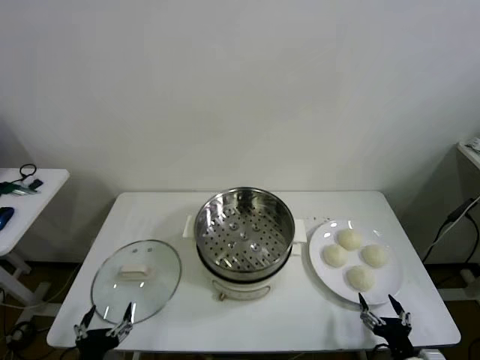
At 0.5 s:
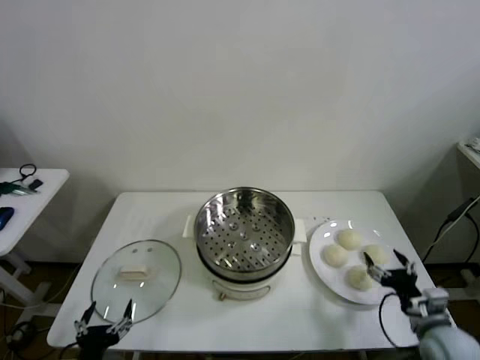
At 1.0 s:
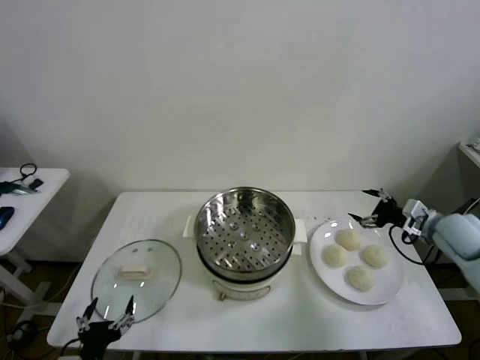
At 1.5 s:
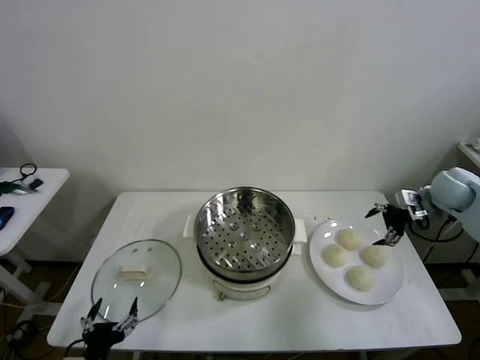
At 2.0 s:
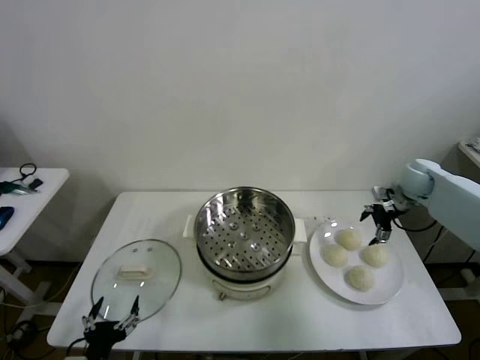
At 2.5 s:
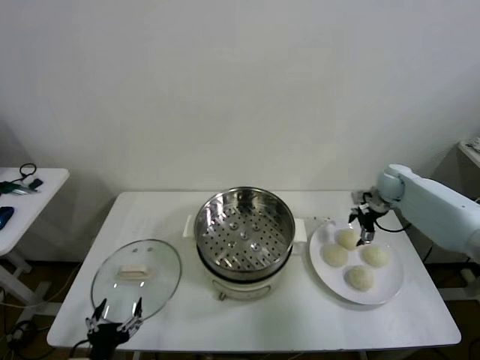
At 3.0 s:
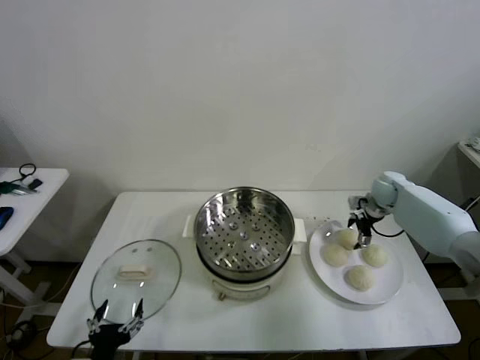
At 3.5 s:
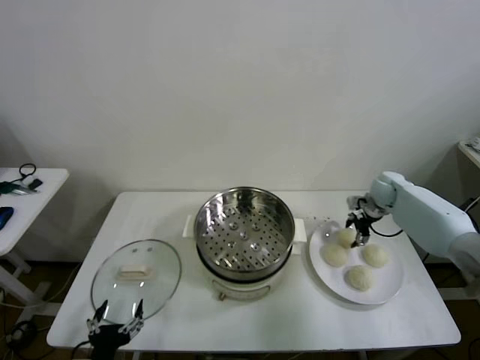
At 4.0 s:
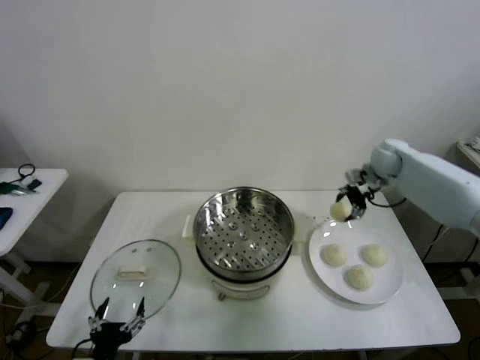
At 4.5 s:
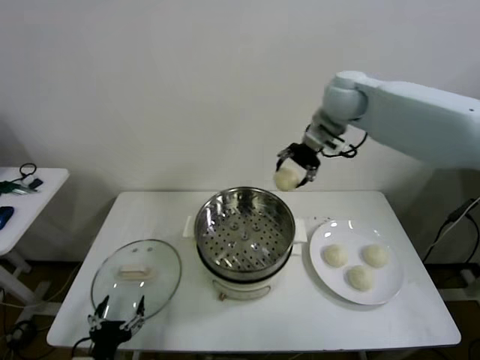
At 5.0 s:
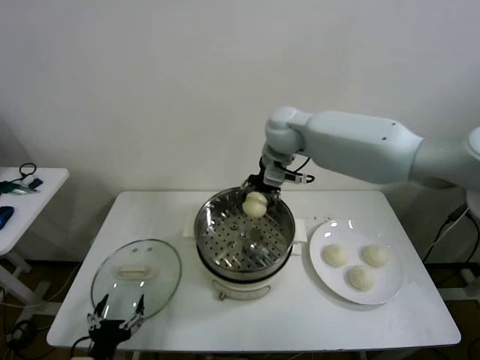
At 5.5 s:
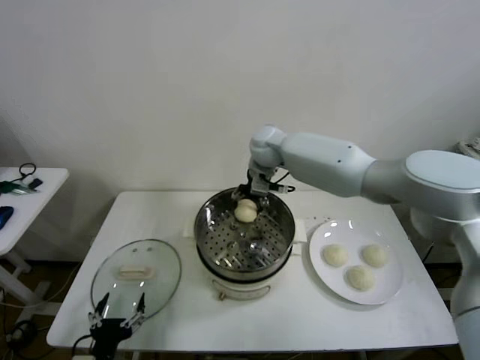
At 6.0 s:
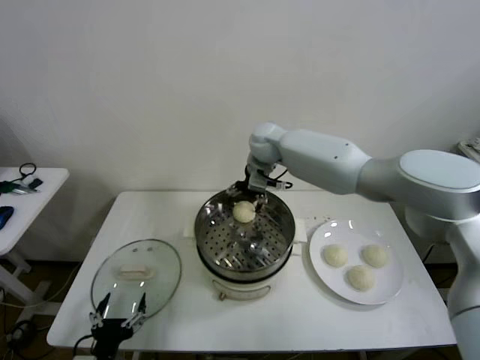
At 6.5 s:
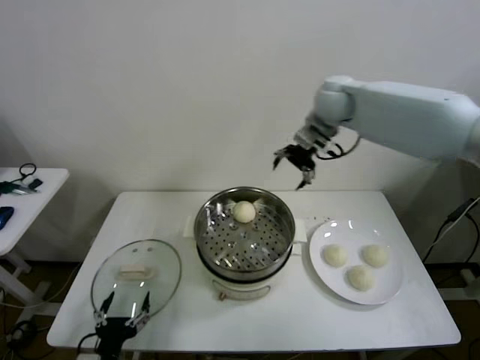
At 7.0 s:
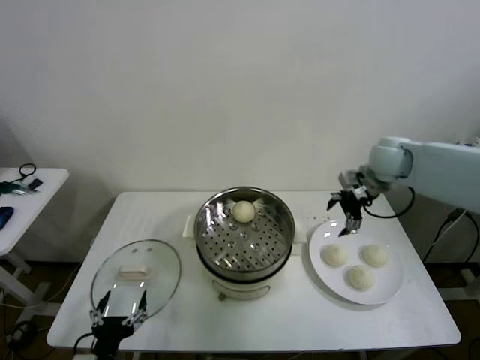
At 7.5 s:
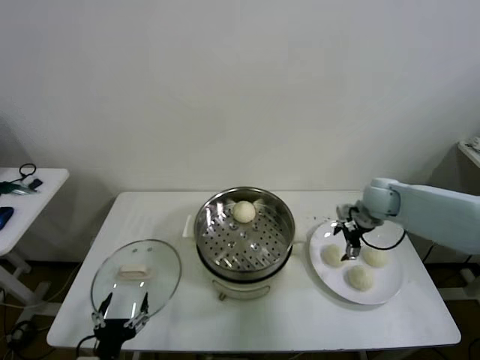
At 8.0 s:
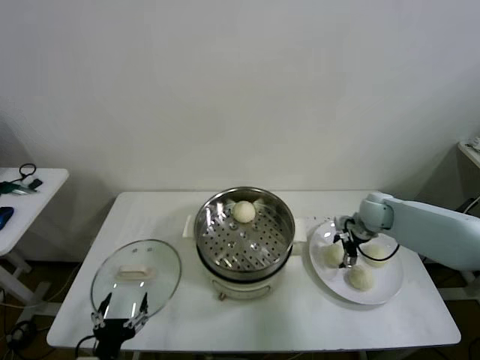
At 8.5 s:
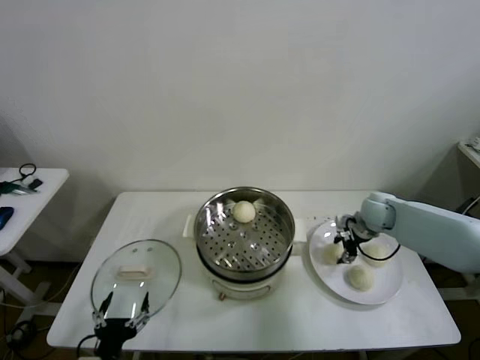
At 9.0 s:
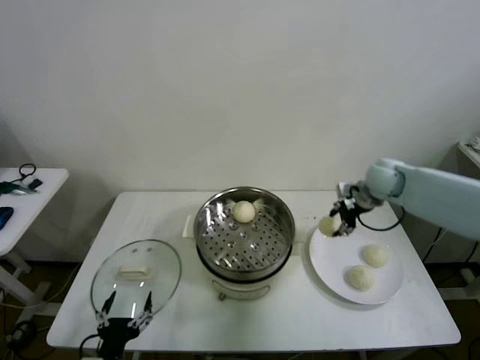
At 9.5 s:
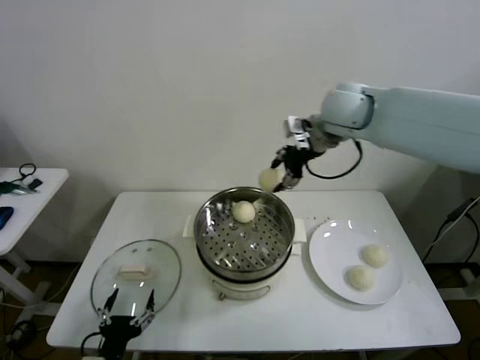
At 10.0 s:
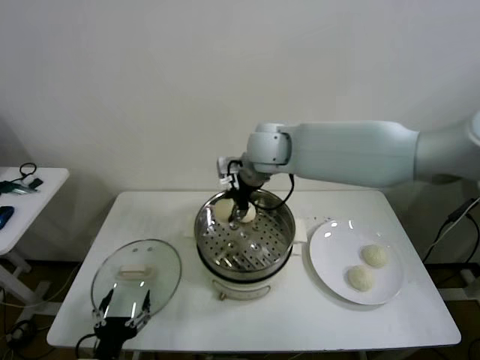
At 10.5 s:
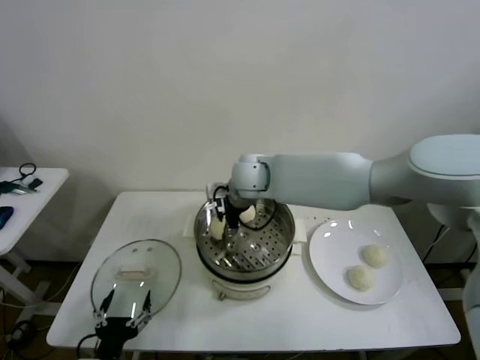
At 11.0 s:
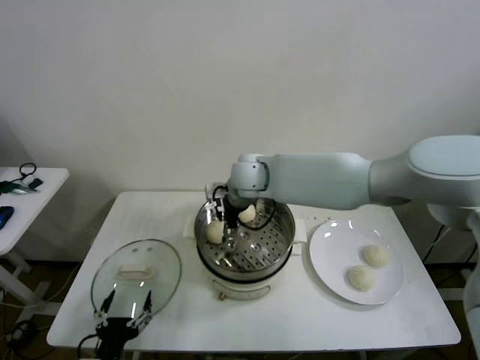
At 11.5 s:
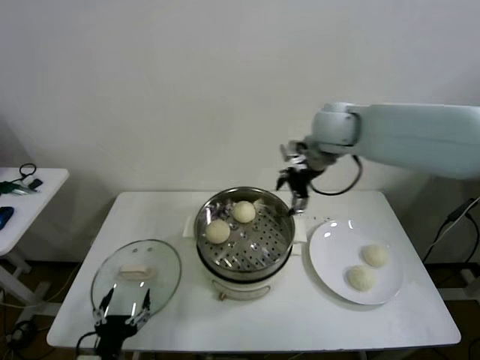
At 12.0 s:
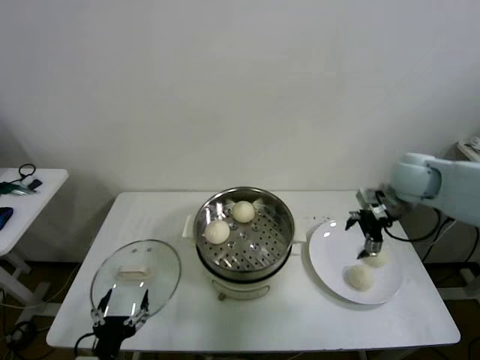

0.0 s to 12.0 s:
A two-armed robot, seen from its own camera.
Task of the whole recording: take steamed baozi put them in steamer then cover it.
Step, 0.0 to 3.5 s: Grasp the baozi in the plate with right gripper.
Step, 4.0 to 6.0 s: Place the baozi on the steamer with right gripper.
Step, 6.5 to 8.5 s: Grasp the baozi in the plate with right gripper.
Step, 9.0 to 11.0 s: Place the baozi on the steamer with right gripper.
2.0 to 4.0 s: The right gripper shifts about 10 cm upward and to the left, and closes.
4.0 to 6.0 s: The right gripper heads to the left, covering roughly 30 cm, and opens up.
6.0 to 8.0 s: The right gripper moves to the right and downward, about 35 cm.
8.0 to 10.0 s: The right gripper shifts some 35 cm to the left and upward, and closes.
10.0 to 12.0 s: The right gripper moves to the right, approximately 30 cm, and opens.

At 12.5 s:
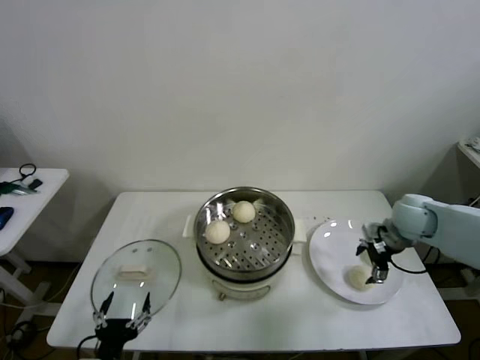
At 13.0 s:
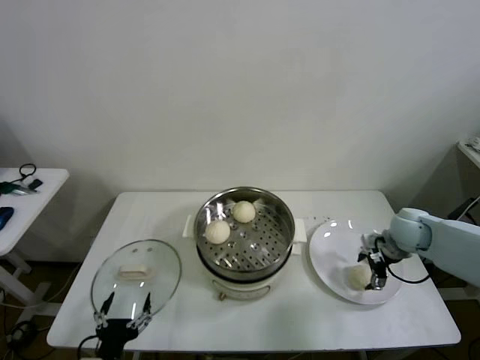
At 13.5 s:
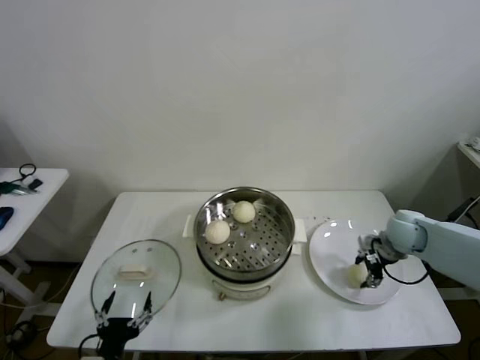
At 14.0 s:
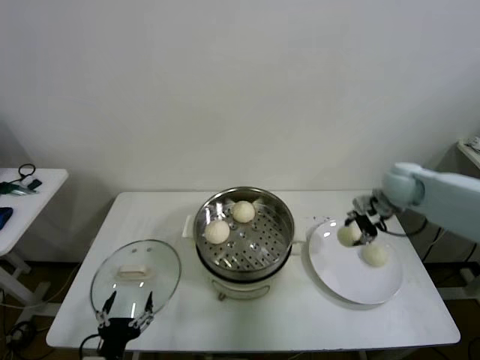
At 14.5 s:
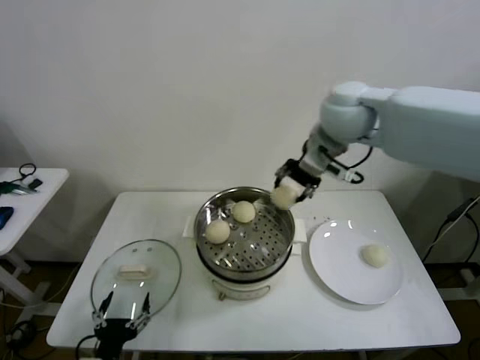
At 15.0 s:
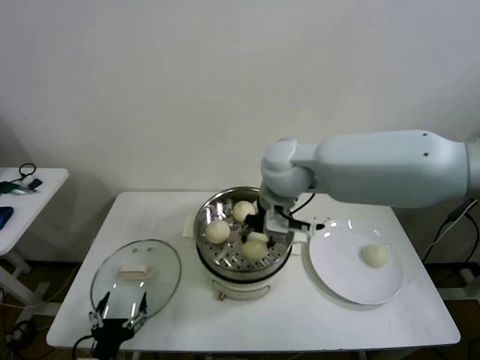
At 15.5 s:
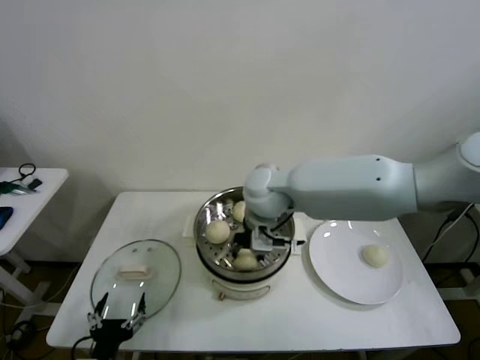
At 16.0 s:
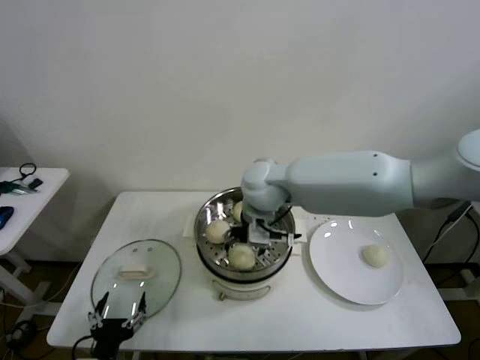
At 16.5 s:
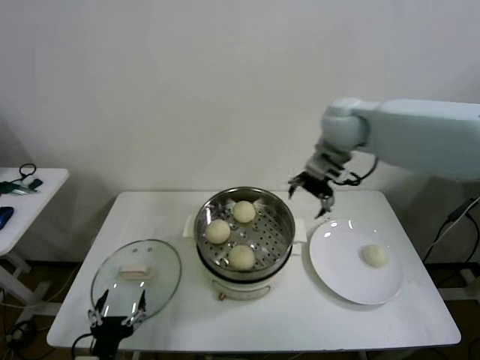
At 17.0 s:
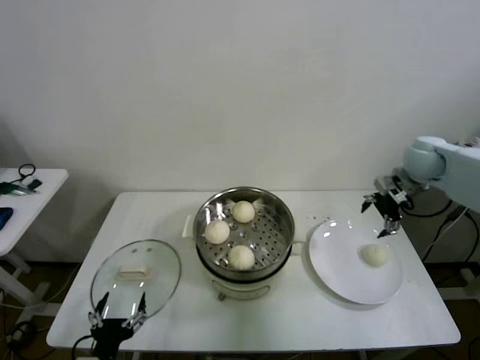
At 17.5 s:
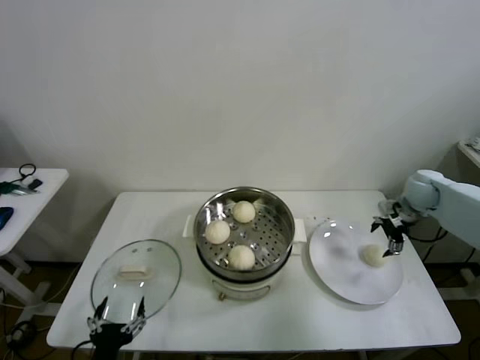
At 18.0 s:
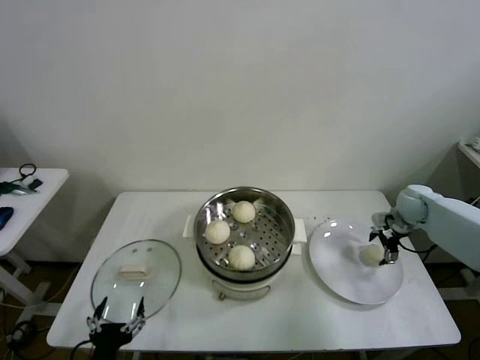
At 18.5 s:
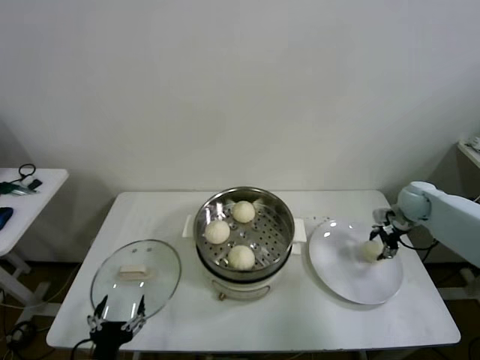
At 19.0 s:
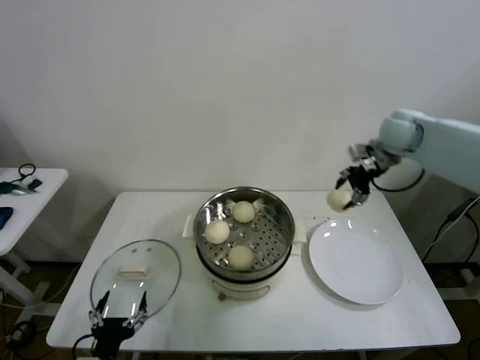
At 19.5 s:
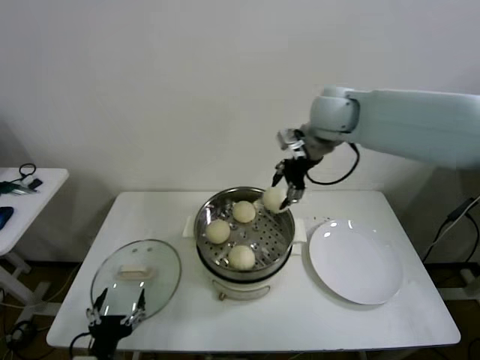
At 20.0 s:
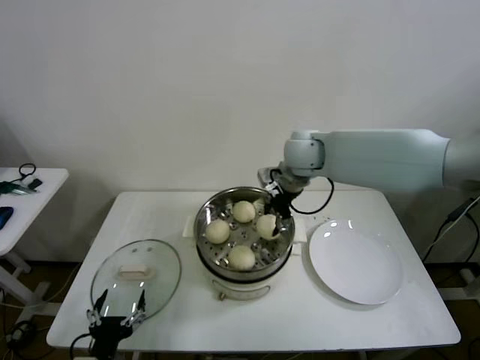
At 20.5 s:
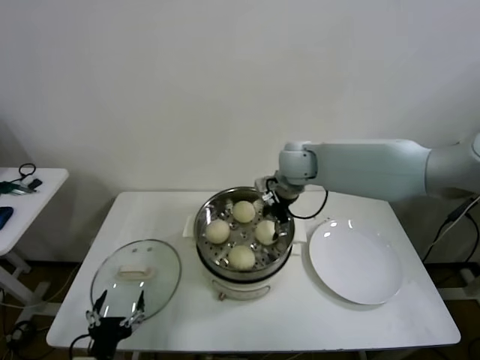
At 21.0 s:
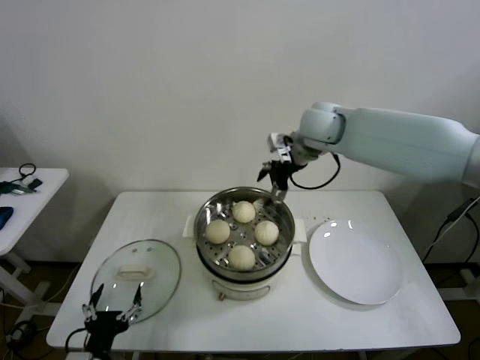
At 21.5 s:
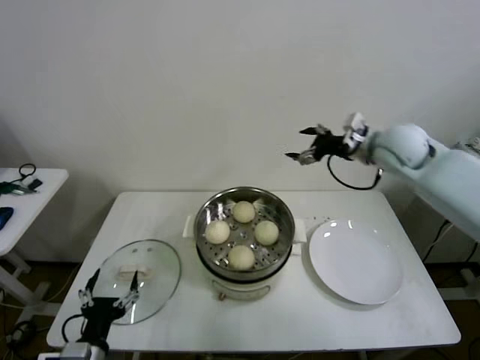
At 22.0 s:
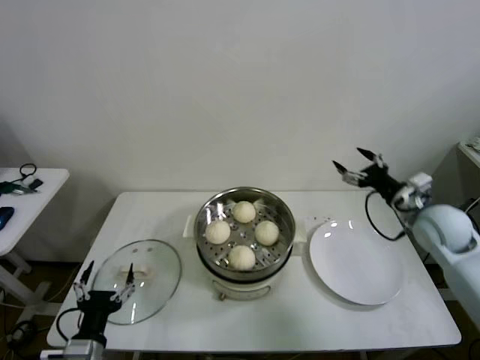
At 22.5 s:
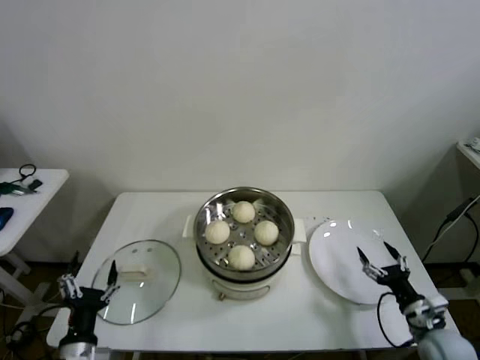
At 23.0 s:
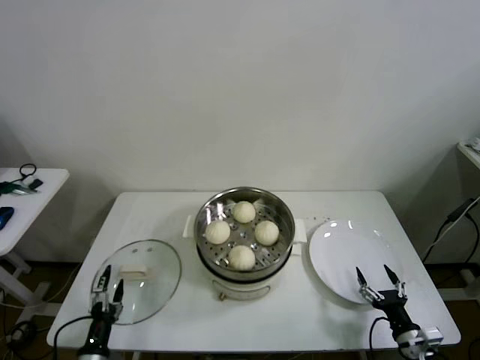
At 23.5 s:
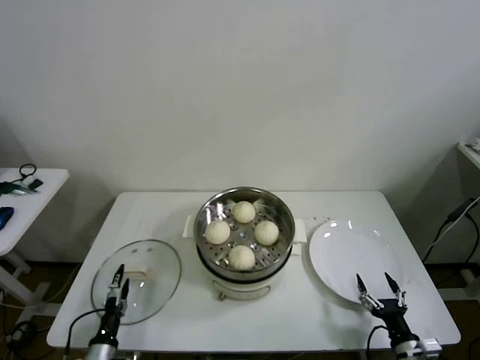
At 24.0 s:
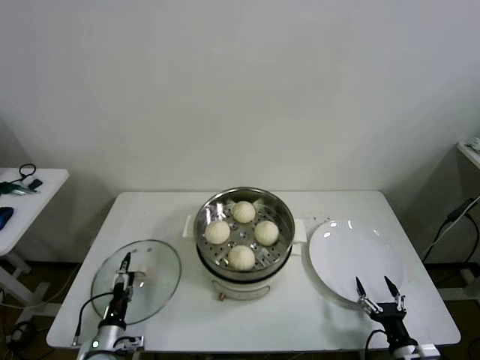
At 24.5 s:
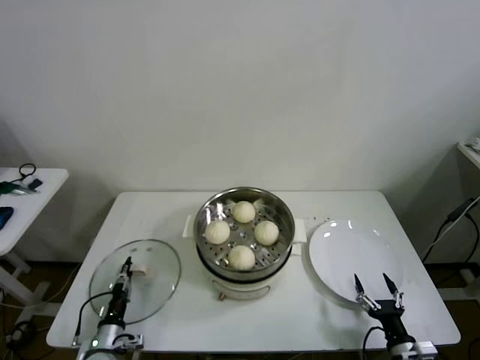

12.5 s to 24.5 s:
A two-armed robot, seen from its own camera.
Task of the whole recording: take steamed baozi put them in steamer then cover it.
Step, 14.0 to 15.5 s: Place the baozi on the steamer with right gripper.
Step, 16.5 to 18.5 s: Grasp the baozi in the plate with right gripper.
Step, 19.0 to 20.5 s: Place the baozi on the steamer with right gripper.
12.5 to 14.5 s: The right gripper goes roughly 35 cm upward and to the left, and closes its fingers.
14.5 to 16.5 s: The right gripper moves approximately 10 cm to the left and comes back, and opens its fingers.
16.5 to 18.5 s: The right gripper heads to the right and downward, covering about 35 cm, and closes up.
18.5 to 20.5 s: The right gripper goes approximately 35 cm to the left.
20.5 to 22.5 s: The right gripper shifts approximately 50 cm to the right, backward and downward, and opens its fingers.
22.5 to 24.5 s: The left gripper shifts about 15 cm downward and forward, and closes. The right gripper heads backward, downward and to the left, covering some 10 cm.

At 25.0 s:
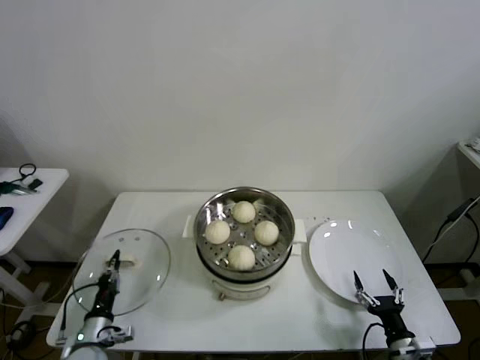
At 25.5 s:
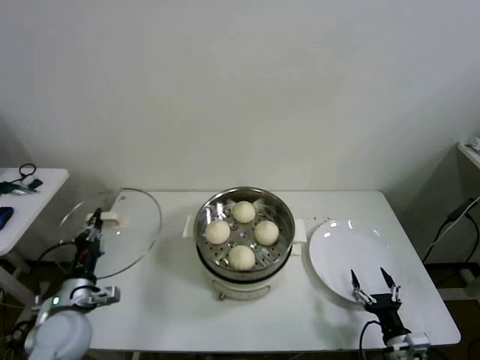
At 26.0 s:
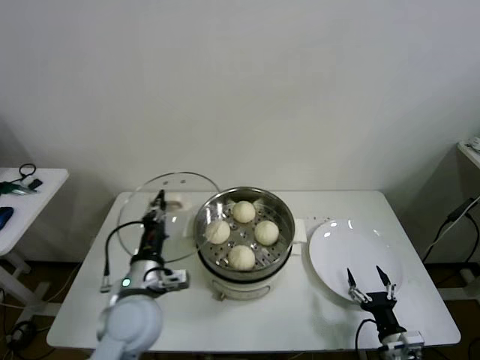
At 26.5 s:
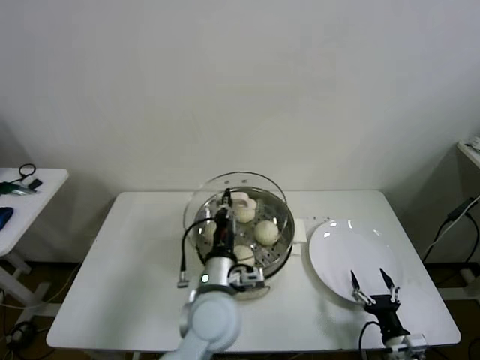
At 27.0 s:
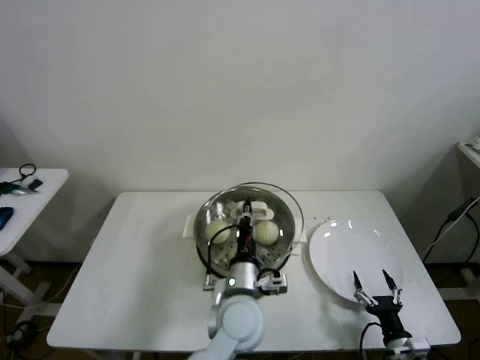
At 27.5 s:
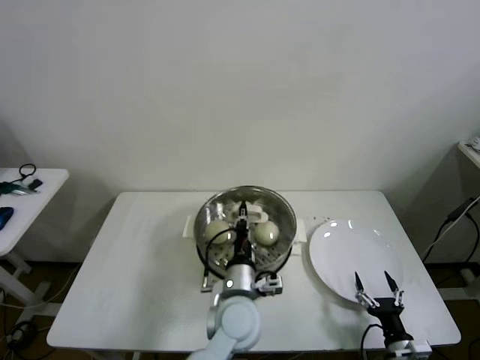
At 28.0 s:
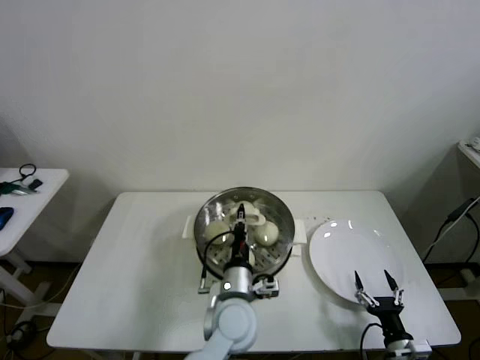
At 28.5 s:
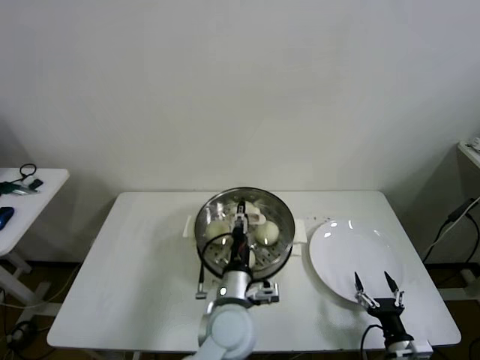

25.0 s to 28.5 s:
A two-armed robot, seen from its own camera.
Task of the whole recording: take steamed baozi put them in steamer then cover it.
25.0 to 27.0 s: The left gripper heads to the right and upward, covering some 40 cm.
27.0 to 28.5 s: The left gripper opens.
